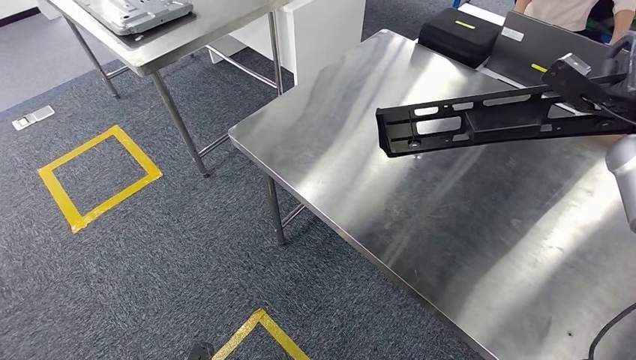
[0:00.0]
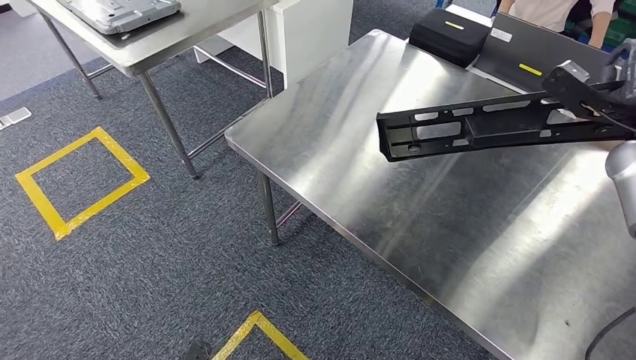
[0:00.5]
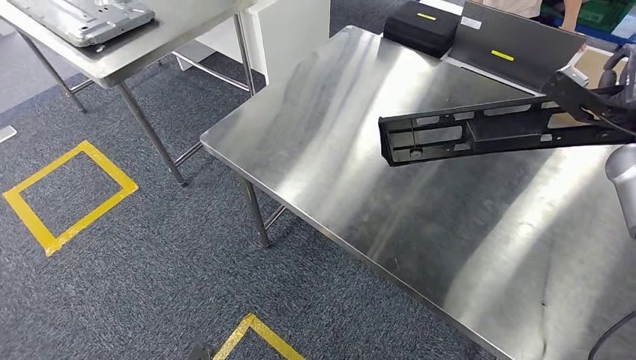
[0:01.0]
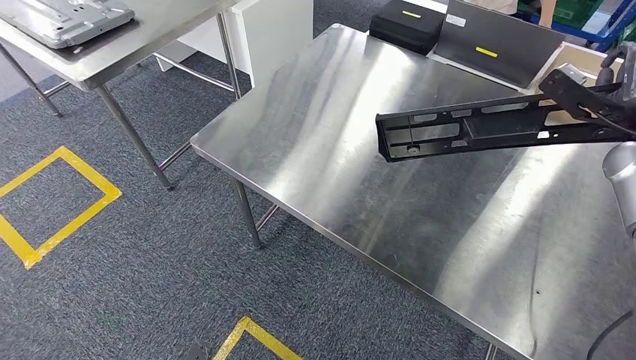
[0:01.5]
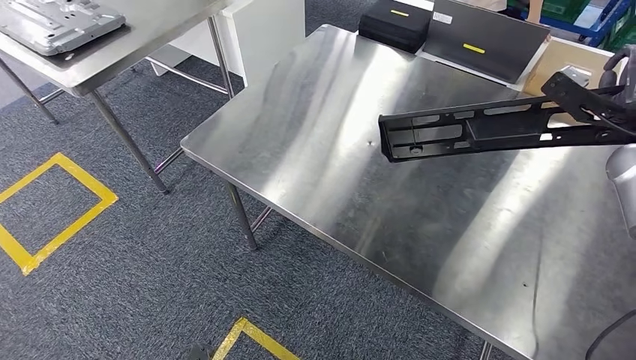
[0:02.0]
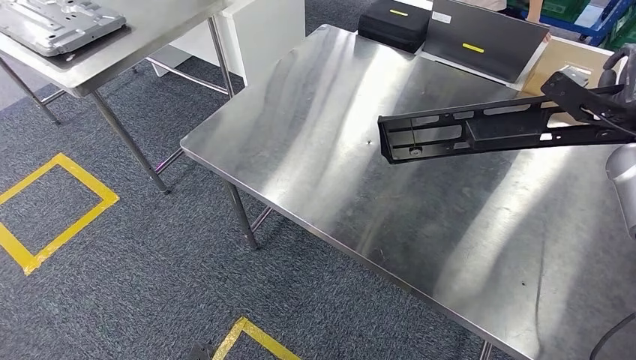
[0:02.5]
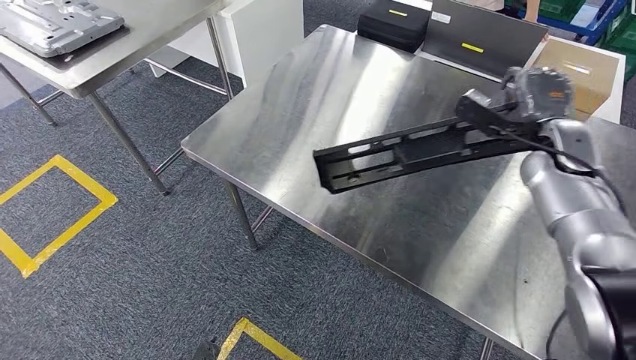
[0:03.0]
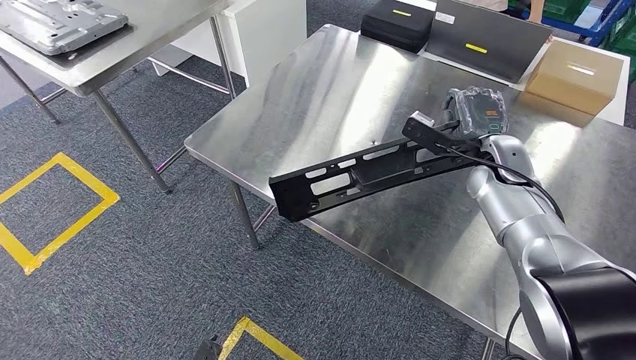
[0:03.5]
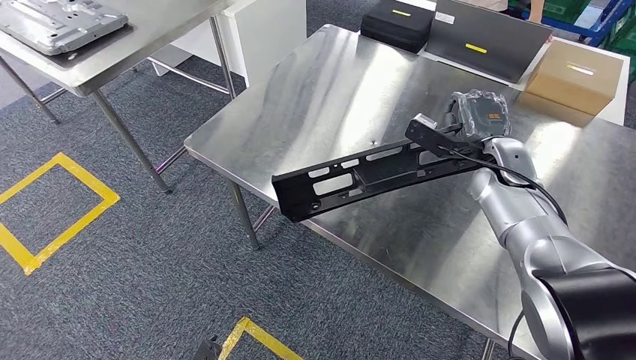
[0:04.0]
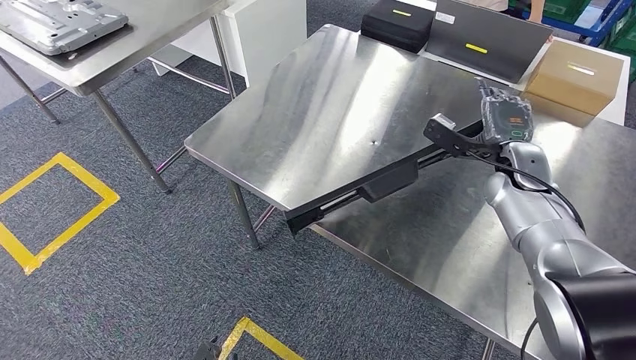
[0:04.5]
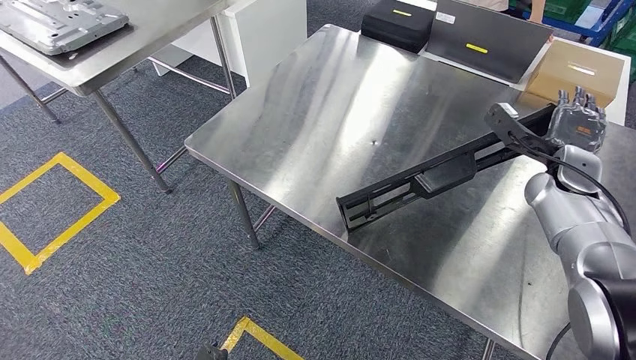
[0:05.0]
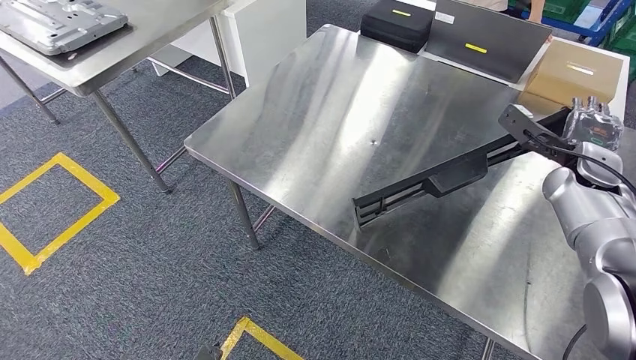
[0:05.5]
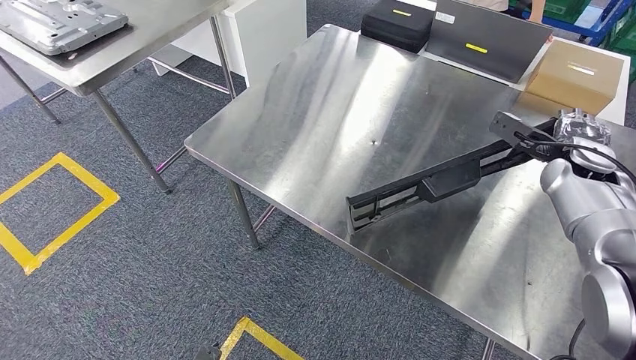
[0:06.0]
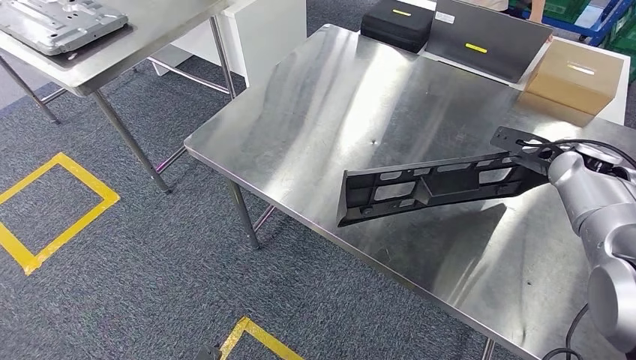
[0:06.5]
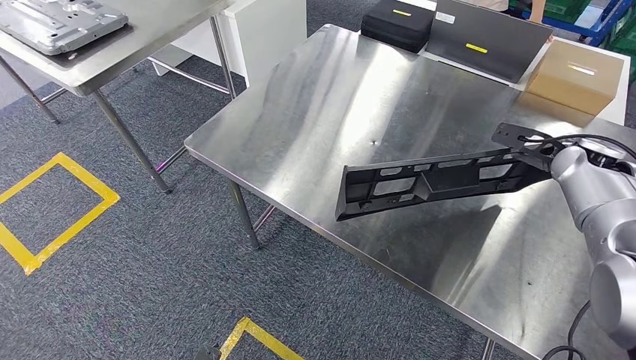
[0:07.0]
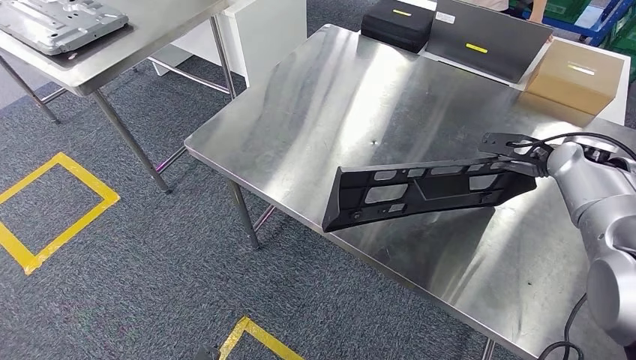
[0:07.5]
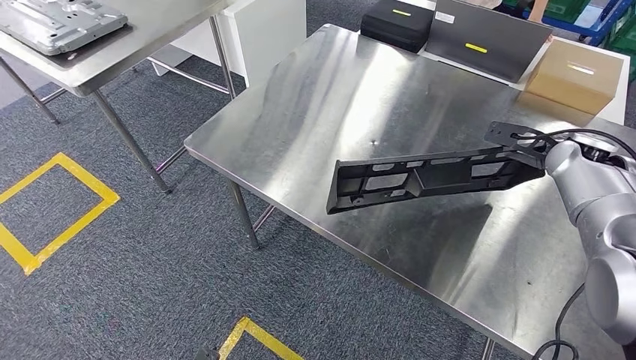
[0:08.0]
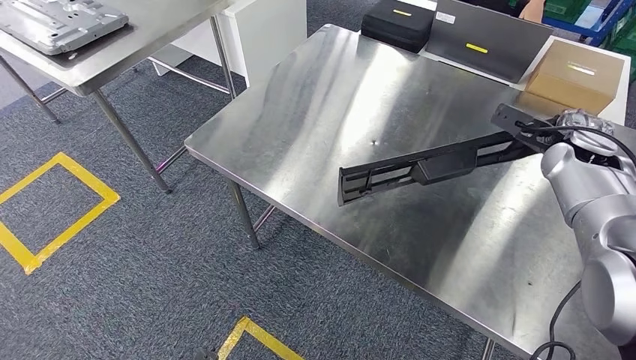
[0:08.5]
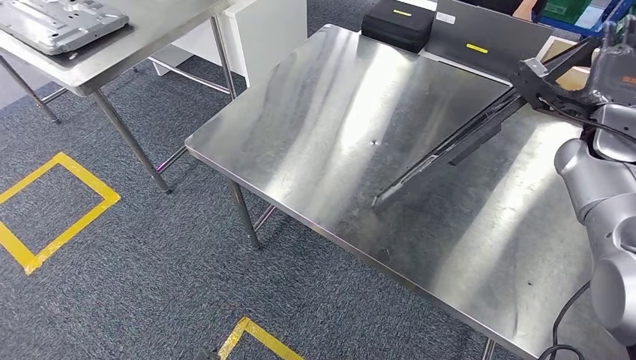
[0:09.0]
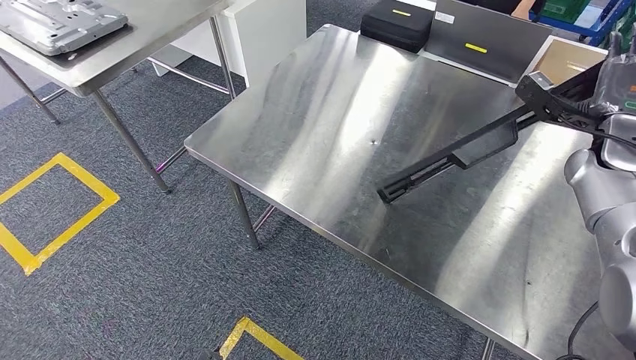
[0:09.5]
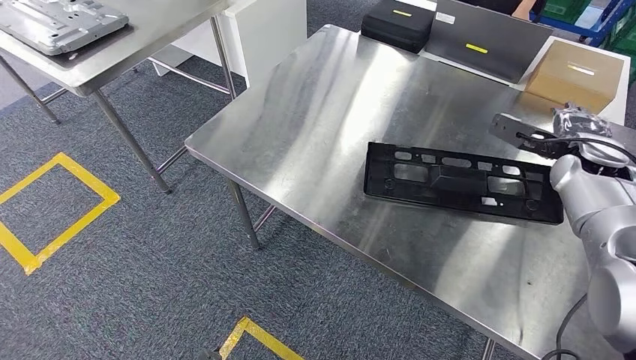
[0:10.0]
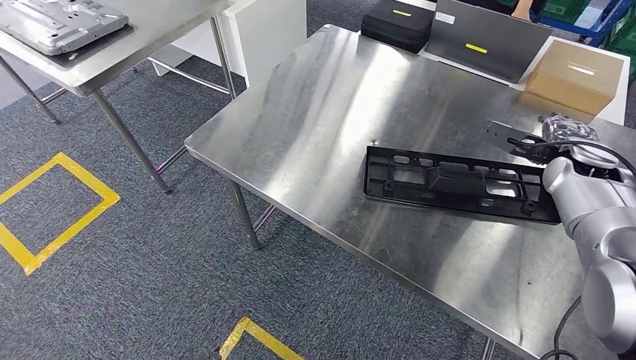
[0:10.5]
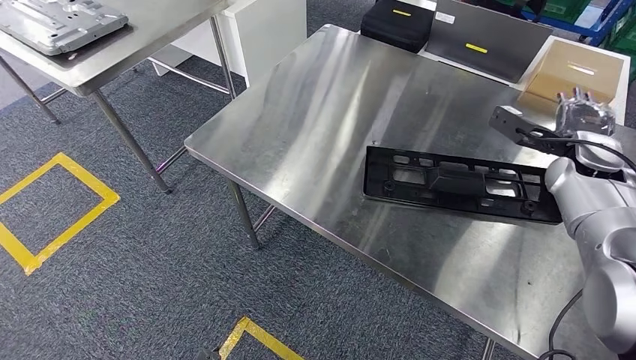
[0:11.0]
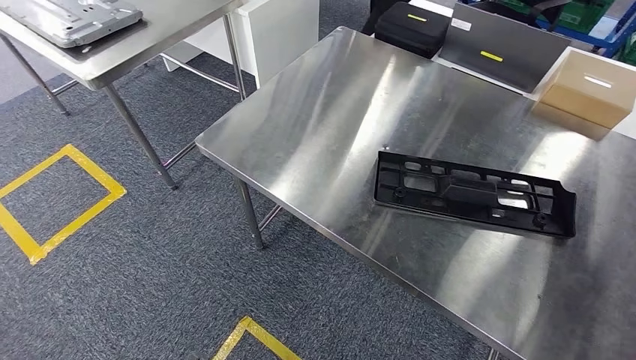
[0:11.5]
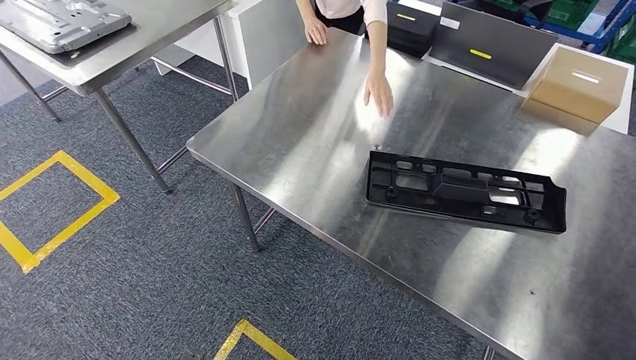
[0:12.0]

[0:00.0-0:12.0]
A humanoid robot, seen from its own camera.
Step, 0:00.0 to 0:11.0: Insert the large material into the corresponding slot on the workbench.
0:04.0 to 0:06.0: The right hand goes about 10 cm to the right.

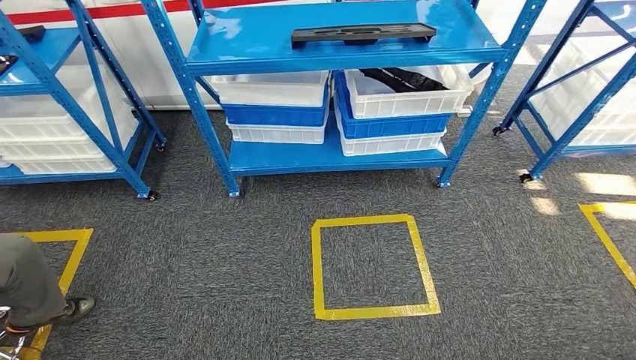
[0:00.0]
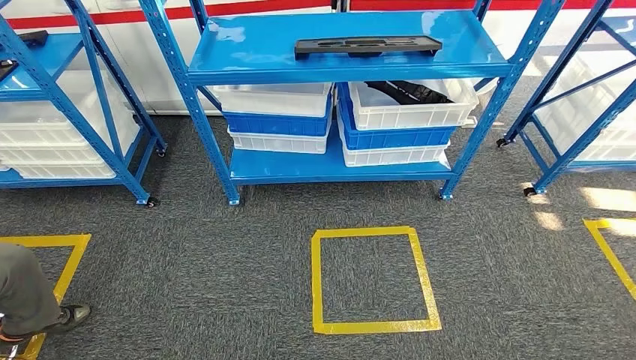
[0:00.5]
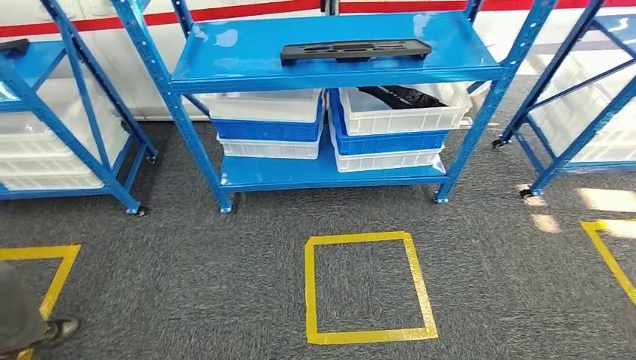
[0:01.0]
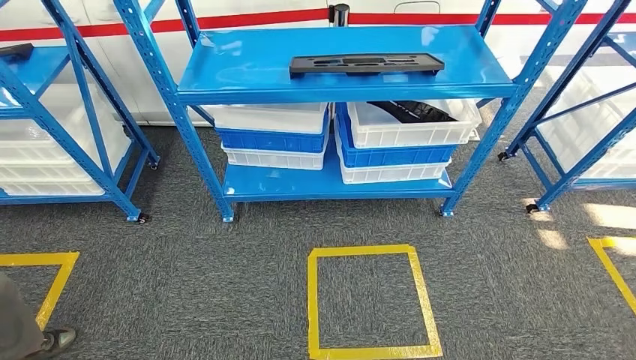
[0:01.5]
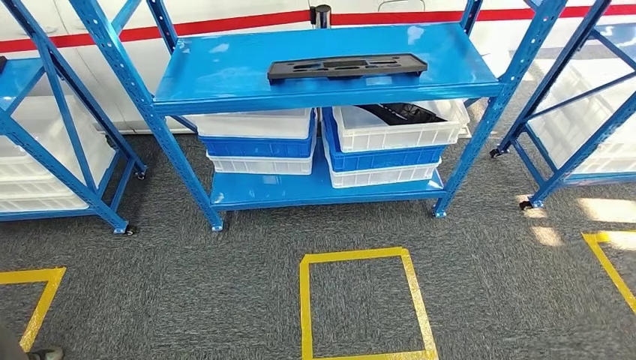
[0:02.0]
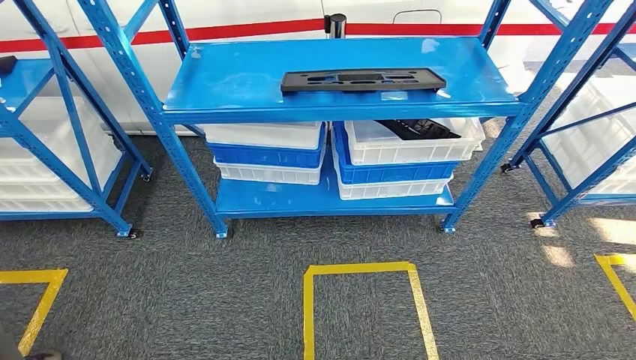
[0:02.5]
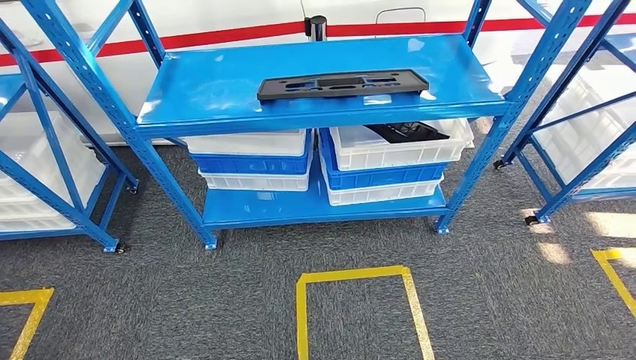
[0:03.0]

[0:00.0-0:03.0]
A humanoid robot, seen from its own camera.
Step, 0:00.0 to 0:03.0: Return to the initial position at the shelf.
